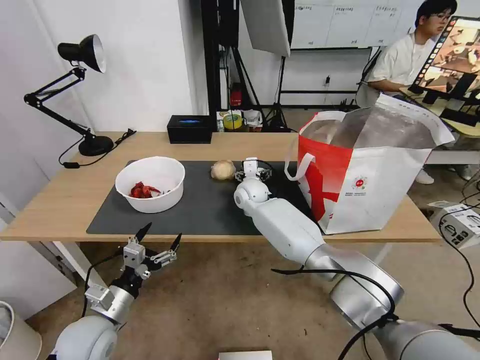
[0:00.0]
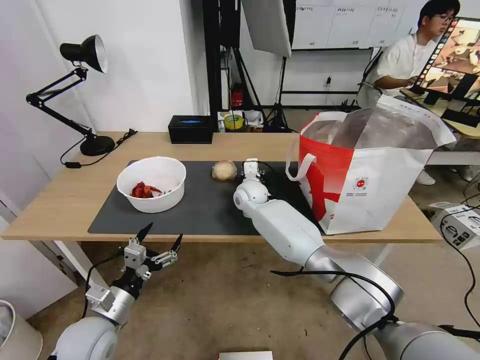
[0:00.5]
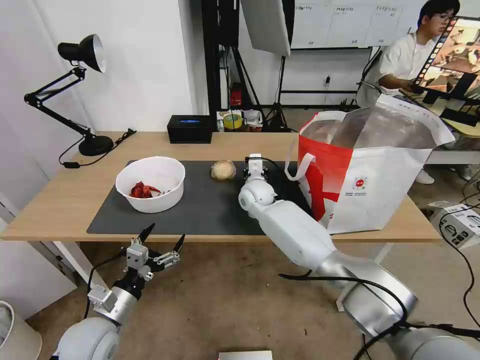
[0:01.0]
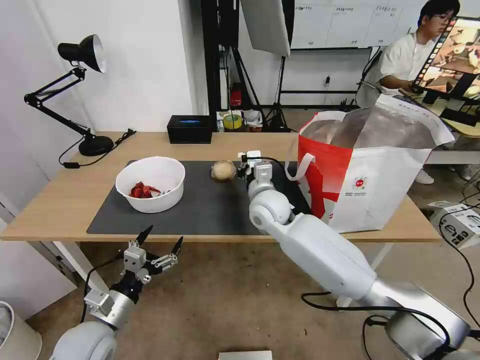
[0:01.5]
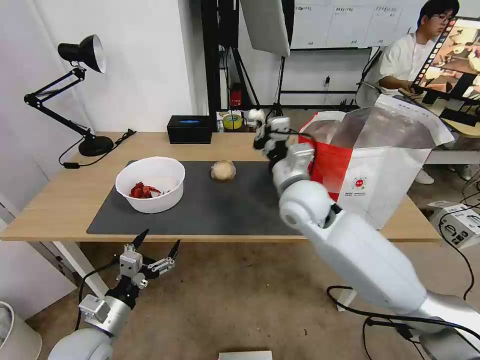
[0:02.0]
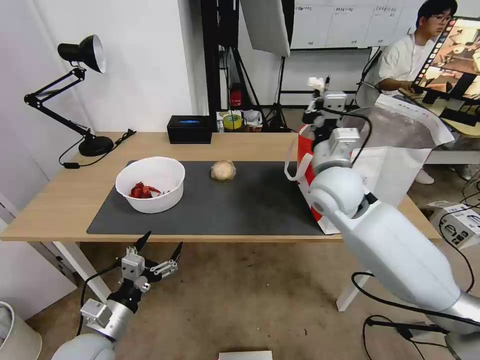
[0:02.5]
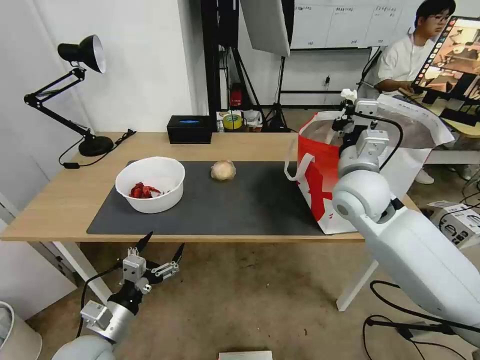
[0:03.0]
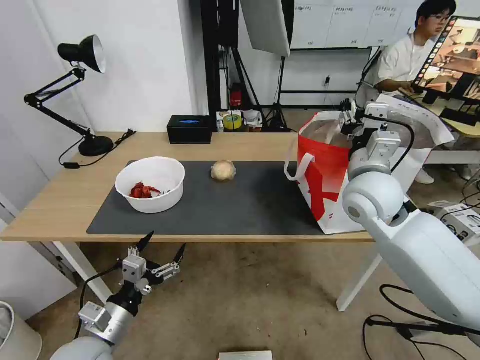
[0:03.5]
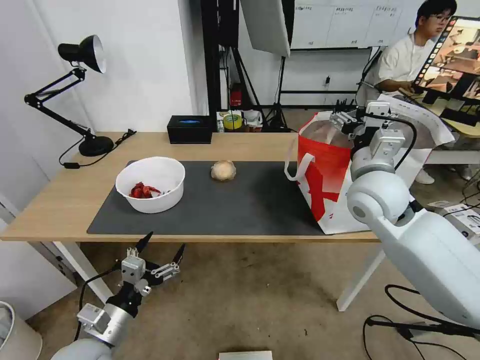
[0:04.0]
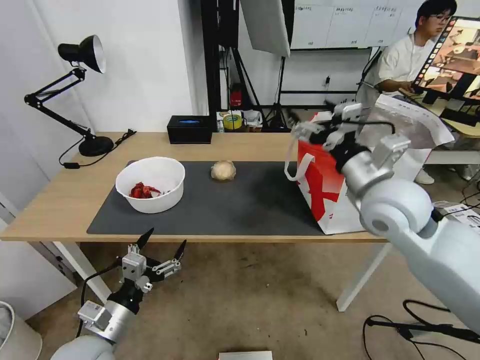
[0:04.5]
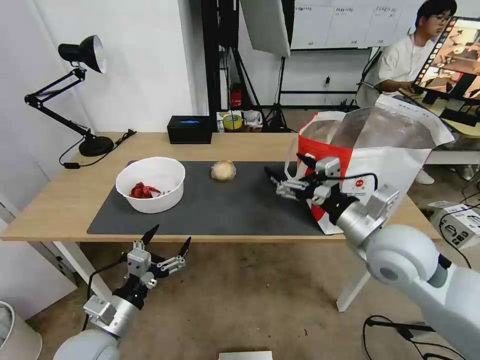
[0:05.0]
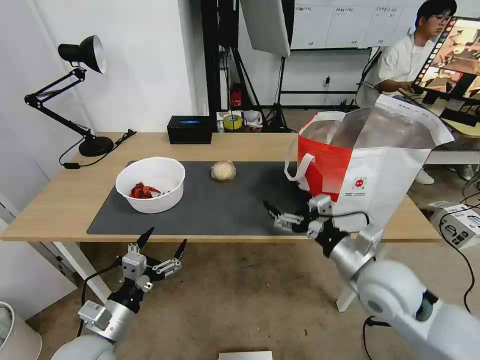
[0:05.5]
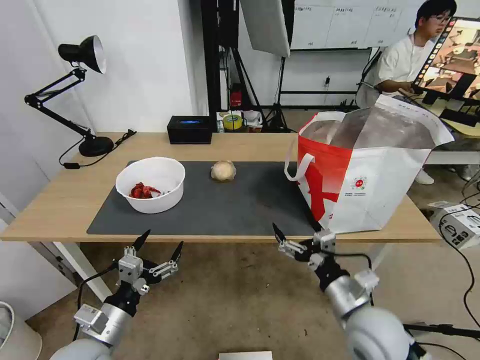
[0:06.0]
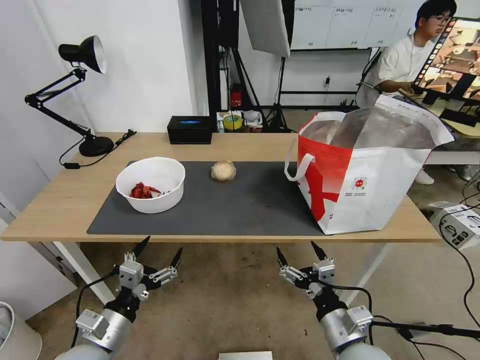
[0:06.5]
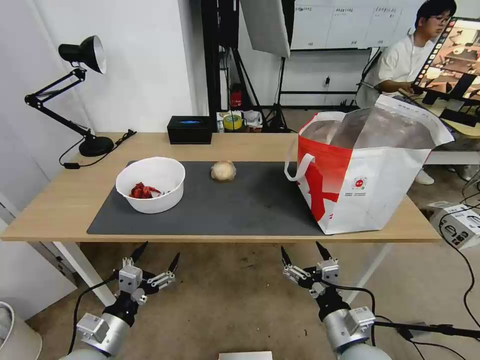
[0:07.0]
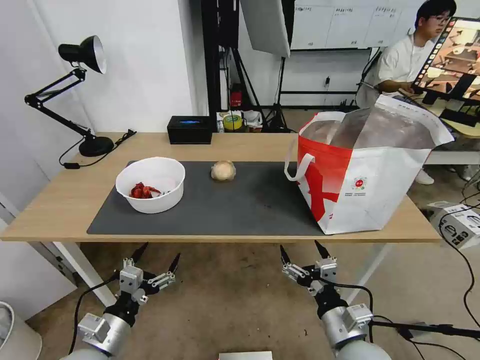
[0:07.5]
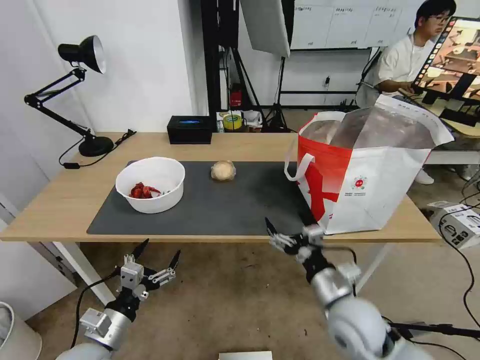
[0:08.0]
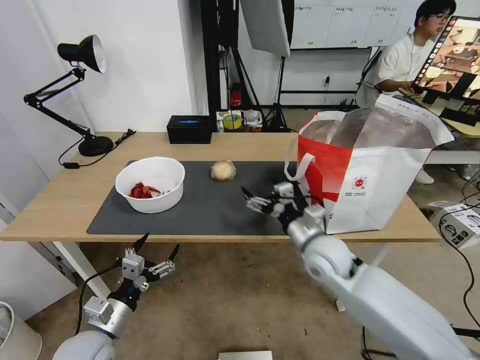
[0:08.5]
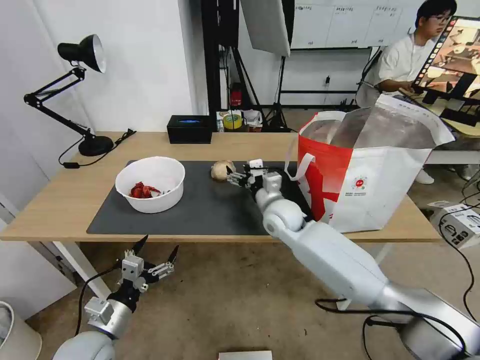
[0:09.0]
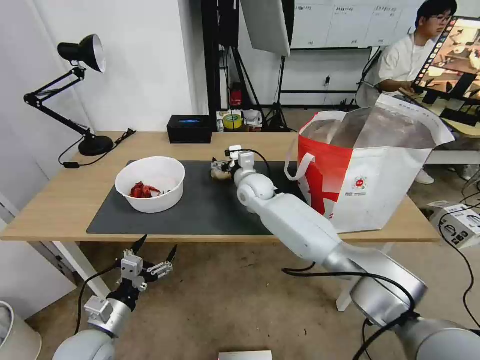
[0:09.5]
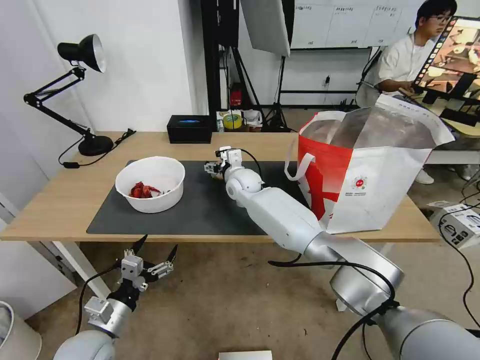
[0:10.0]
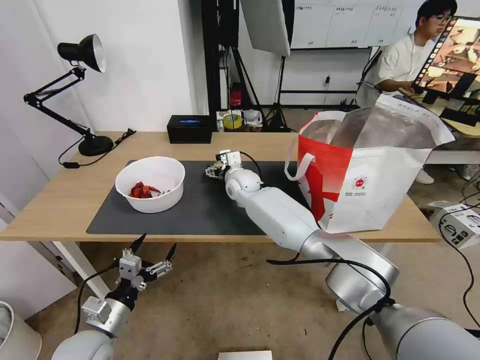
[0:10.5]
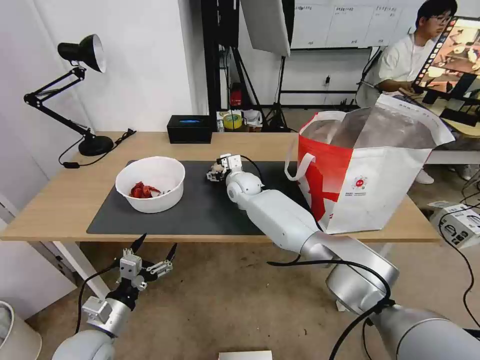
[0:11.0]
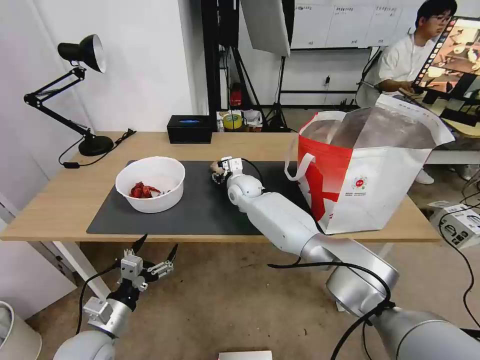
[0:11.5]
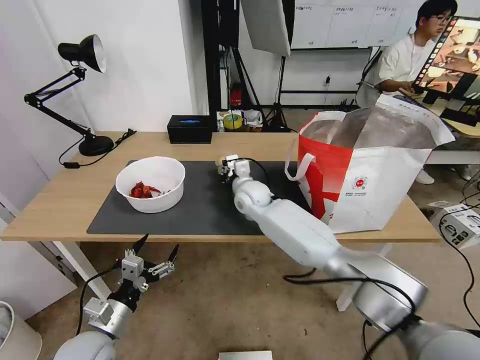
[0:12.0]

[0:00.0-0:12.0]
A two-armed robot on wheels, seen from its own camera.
Task of the whole recording: Pick up the trash from the table and place it into the takeout bag.
0:00.0 to 0:02.0: The right gripper heads backward, upward and to the right, covering roughly 25 cm, and closes its fingers.
0:02.0 to 0:04.0: The right gripper moves to the right, approximately 10 cm, and opens up.
0:04.0 to 0:06.0: The right gripper moves backward and downward, approximately 25 cm.
0:08.0 to 0:10.0: The right gripper heads forward and to the left, covering approximately 40 cm.
0:10.0 to 0:12.0: The right gripper ends up some 5 cm from where it was, and closes up.

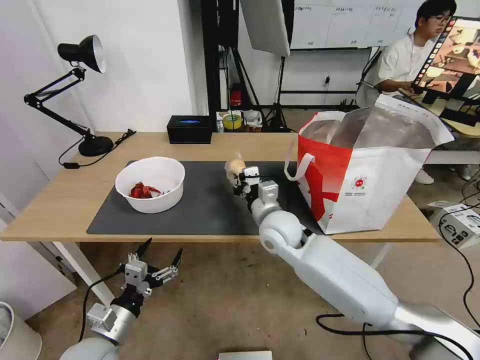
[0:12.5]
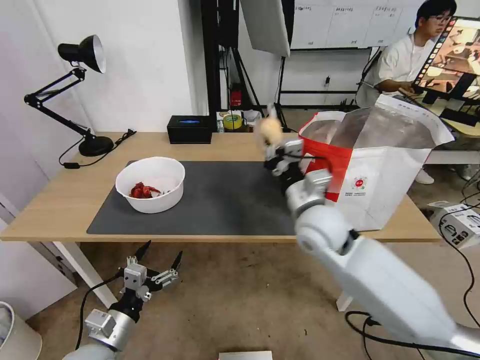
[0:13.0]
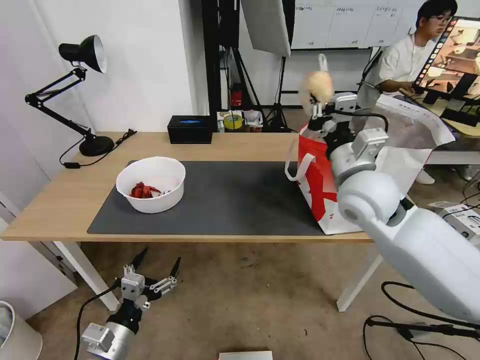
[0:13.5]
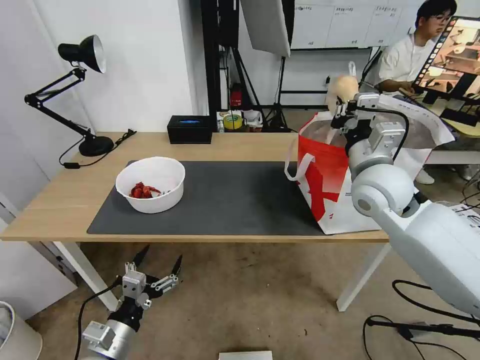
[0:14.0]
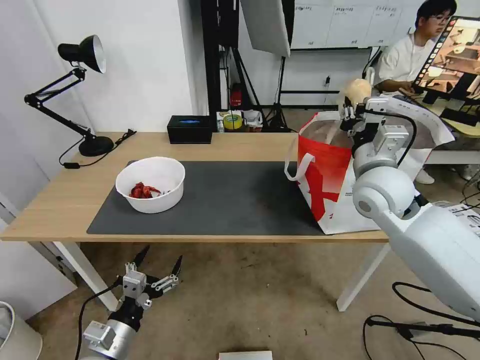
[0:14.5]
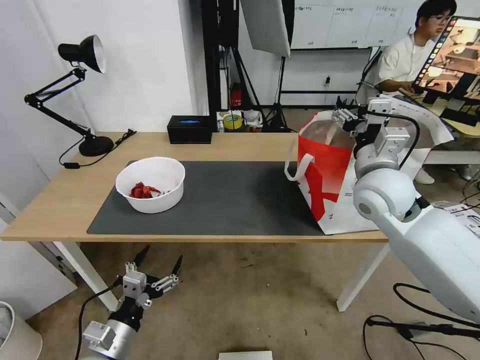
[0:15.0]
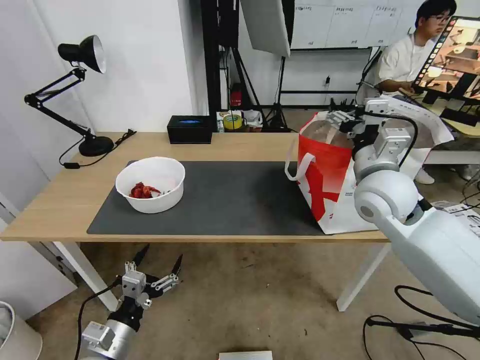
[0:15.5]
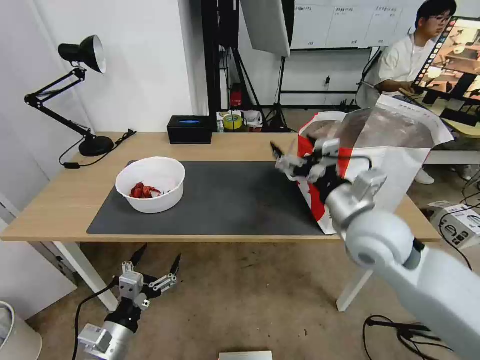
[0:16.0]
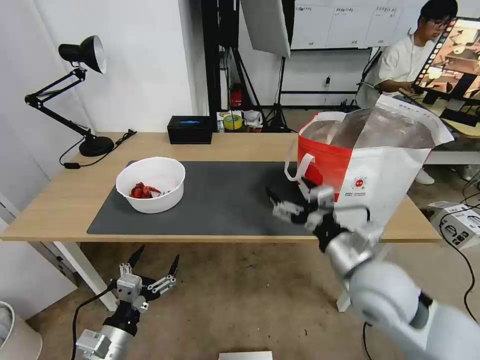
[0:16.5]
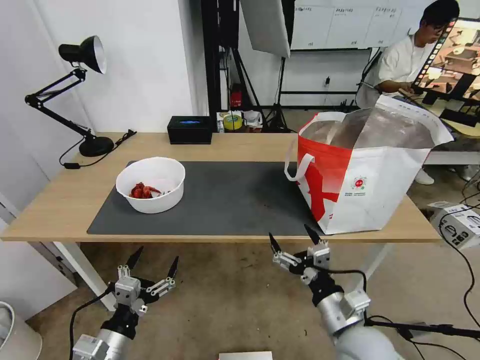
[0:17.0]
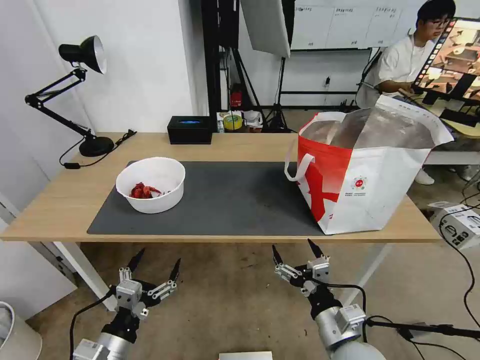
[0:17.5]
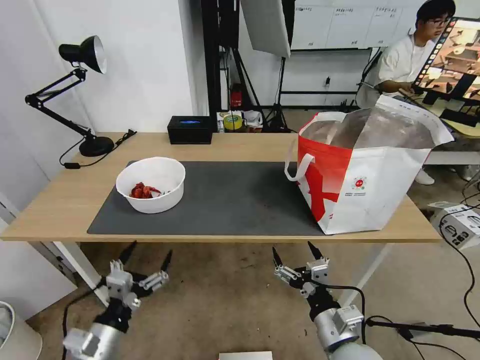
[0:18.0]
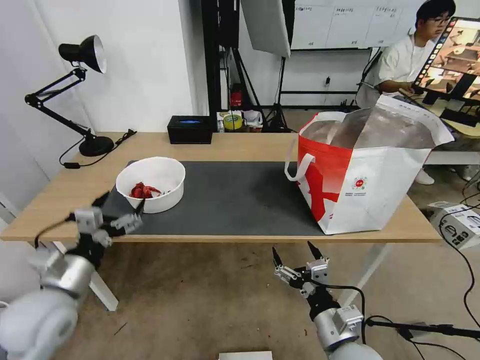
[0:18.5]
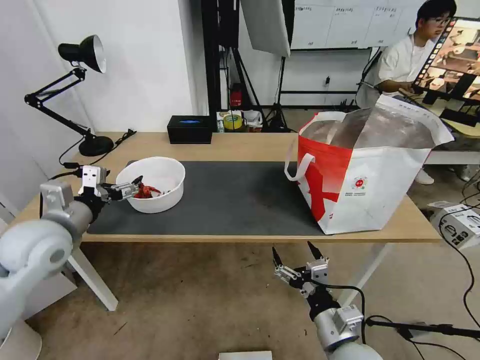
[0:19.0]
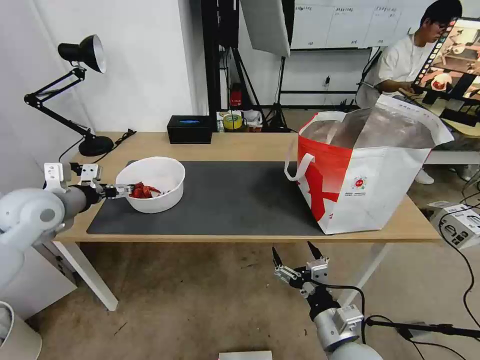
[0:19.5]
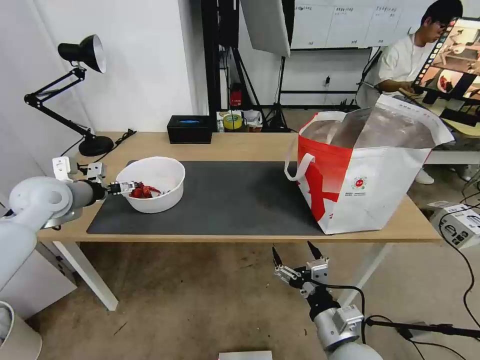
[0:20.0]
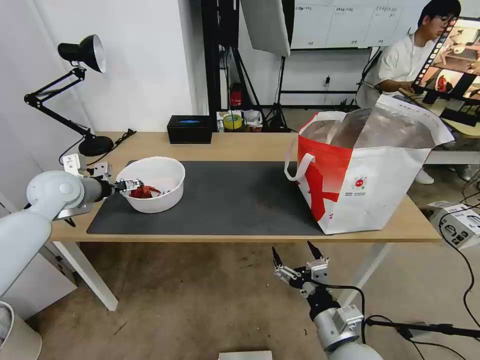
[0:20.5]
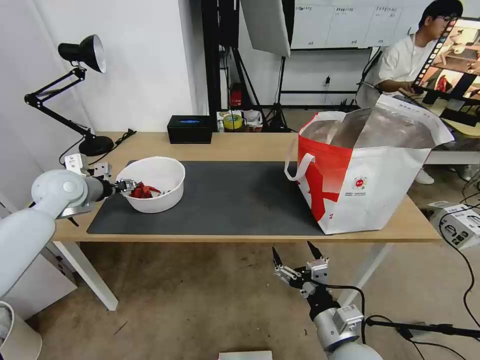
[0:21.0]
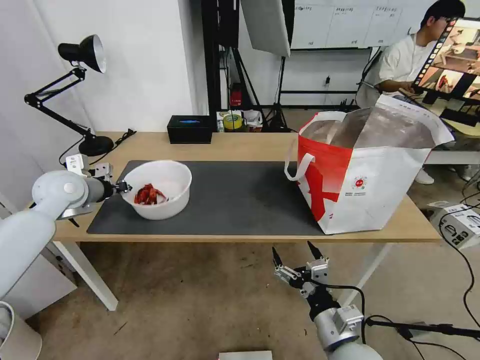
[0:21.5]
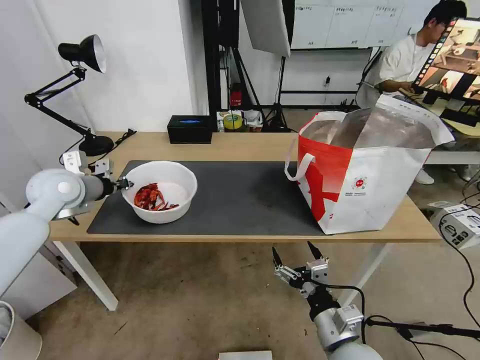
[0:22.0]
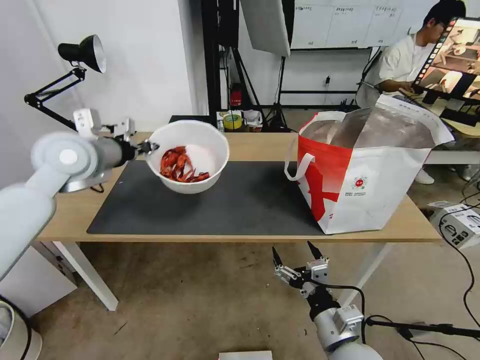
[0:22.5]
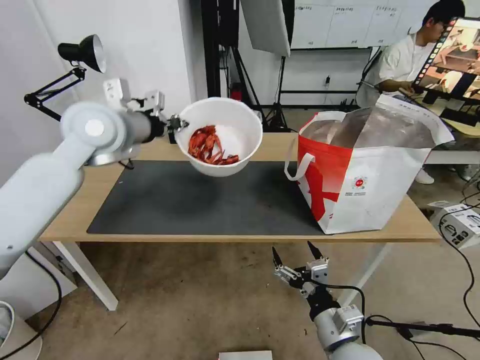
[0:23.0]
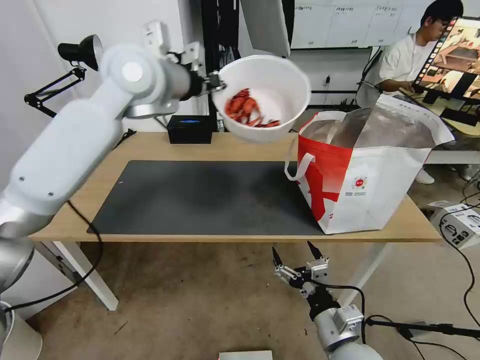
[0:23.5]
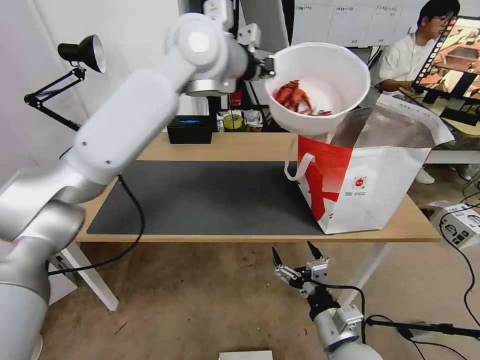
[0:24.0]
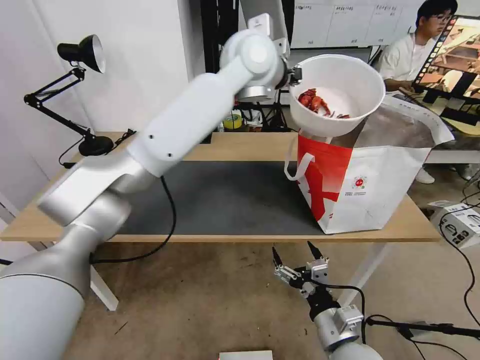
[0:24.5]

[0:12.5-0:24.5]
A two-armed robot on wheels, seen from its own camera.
Task of the whole recording: Pick up the trash from the table and place it into the takeout bag.
0:12.5 to 0:14.5: The right gripper shifts roughly 20 cm to the right and upward.
0:14.5 to 0:16.5: The right gripper is displaced backward and downward by some 15 cm, and opens.
0:16.5 to 0:18.5: The right gripper moves downward and backward, approximately 15 cm. The left gripper travels upward, forward and to the left by approximately 15 cm.
0:18.5 to 0:20.5: The left gripper travels forward by approximately 25 cm.
0:20.5 to 0:22.5: The left gripper travels upward and to the right by roughly 15 cm, and closes its fingers.
0:22.5 to 0:24.5: The left gripper moves to the right, about 30 cm.

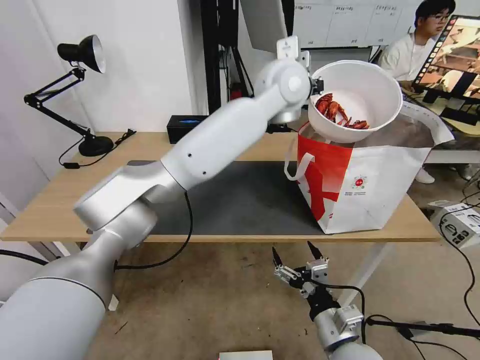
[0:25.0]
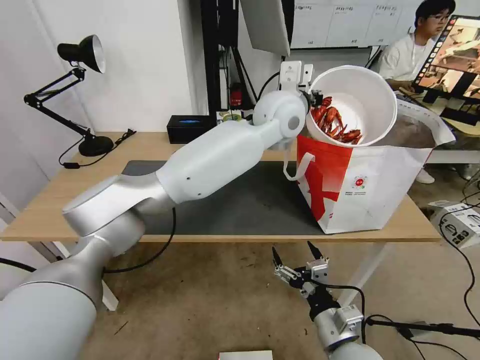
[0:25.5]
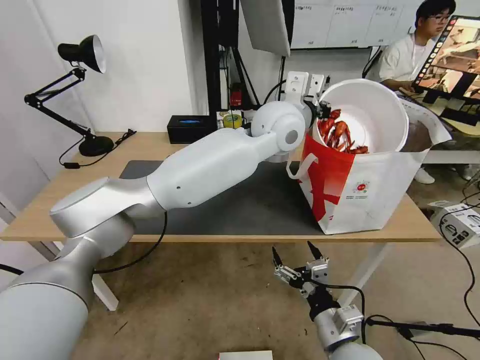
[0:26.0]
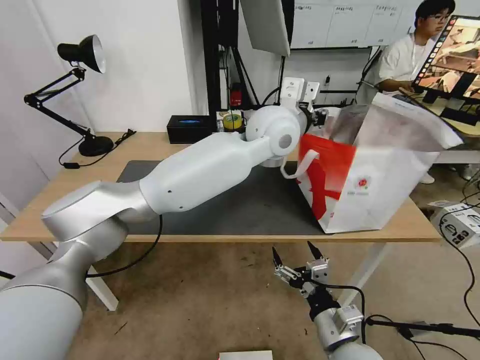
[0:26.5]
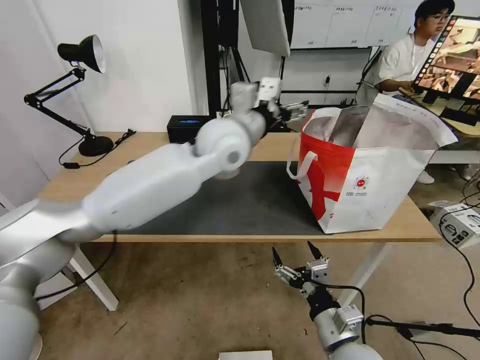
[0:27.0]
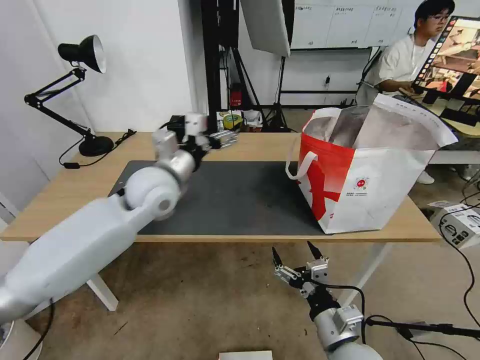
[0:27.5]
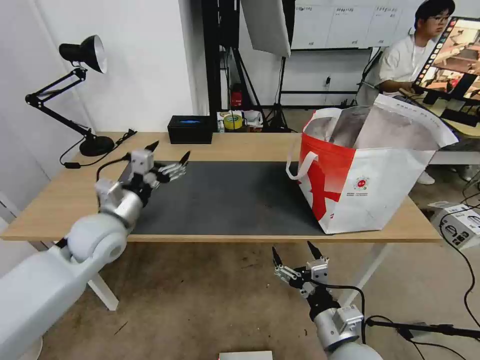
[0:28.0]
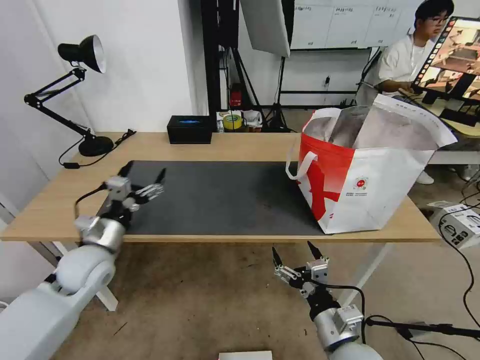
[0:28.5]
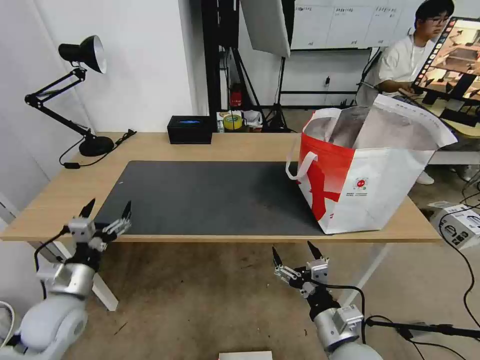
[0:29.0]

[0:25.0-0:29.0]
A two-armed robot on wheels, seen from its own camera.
Task of the whole recording: Pick up the trash from the table and place it into the takeout bag.
0:25.0 to 0:27.0: The left gripper moves to the left, downward and backward, approximately 15 cm, and opens.
0:27.0 to 0:29.0: The left gripper is displaced to the left, downward and backward by approximately 40 cm.
